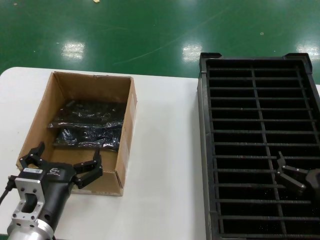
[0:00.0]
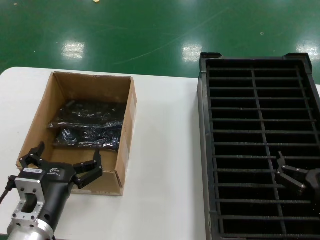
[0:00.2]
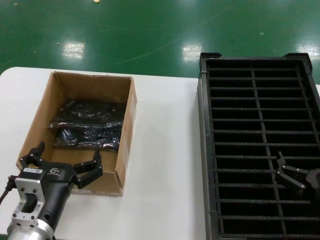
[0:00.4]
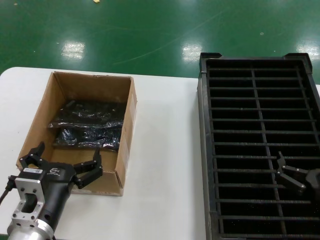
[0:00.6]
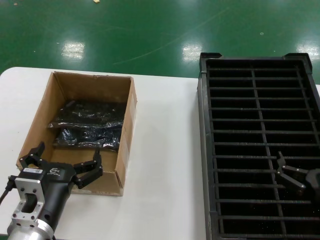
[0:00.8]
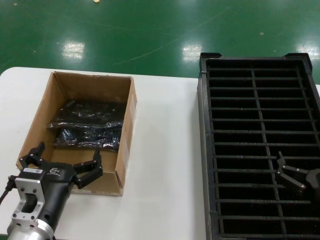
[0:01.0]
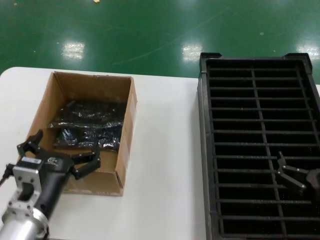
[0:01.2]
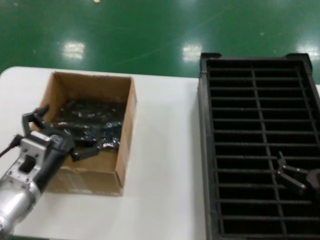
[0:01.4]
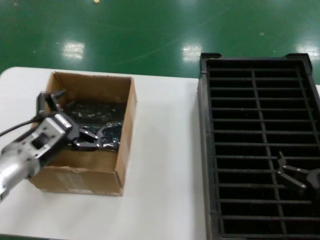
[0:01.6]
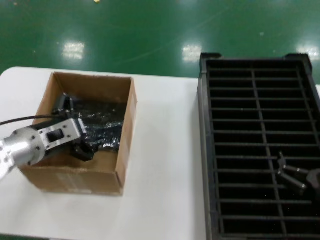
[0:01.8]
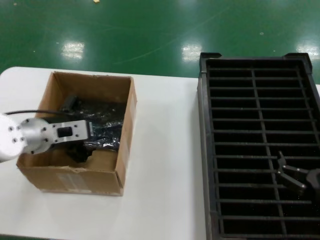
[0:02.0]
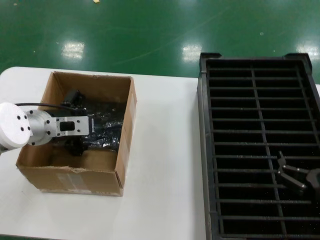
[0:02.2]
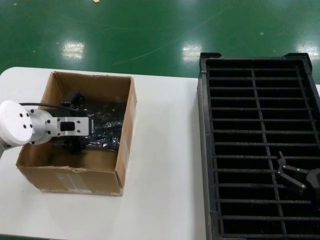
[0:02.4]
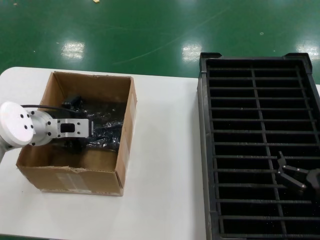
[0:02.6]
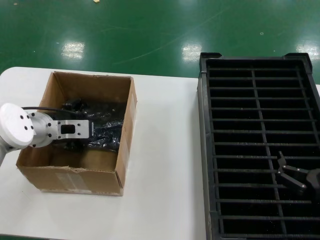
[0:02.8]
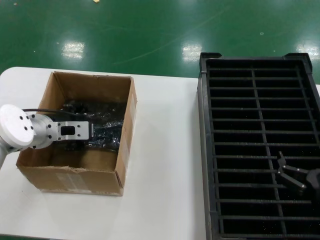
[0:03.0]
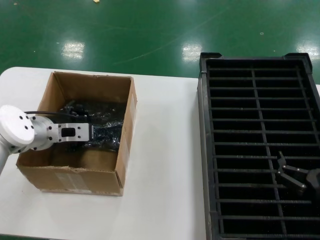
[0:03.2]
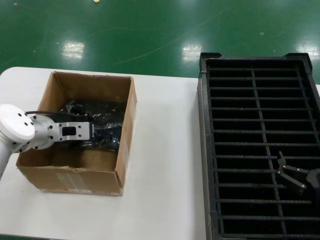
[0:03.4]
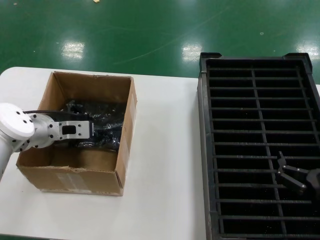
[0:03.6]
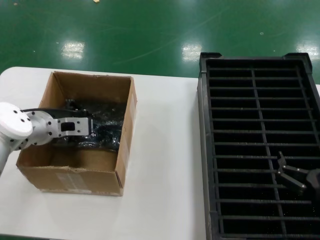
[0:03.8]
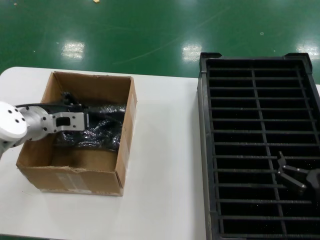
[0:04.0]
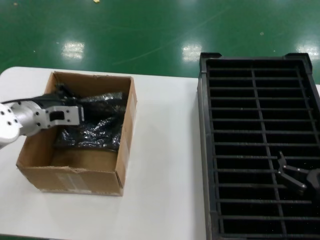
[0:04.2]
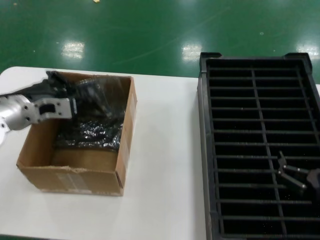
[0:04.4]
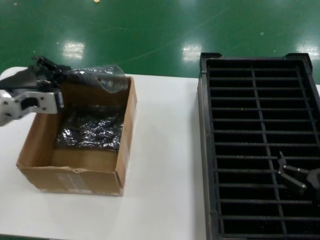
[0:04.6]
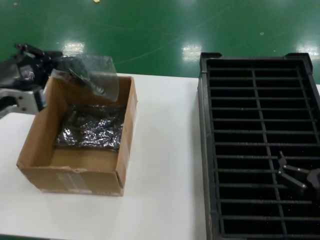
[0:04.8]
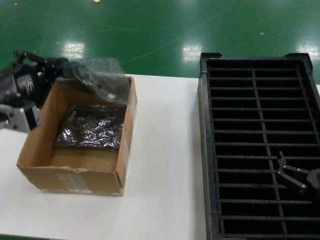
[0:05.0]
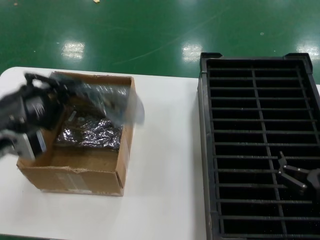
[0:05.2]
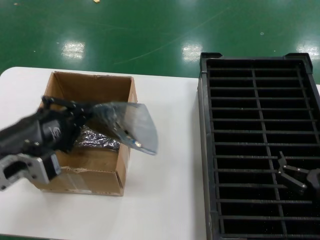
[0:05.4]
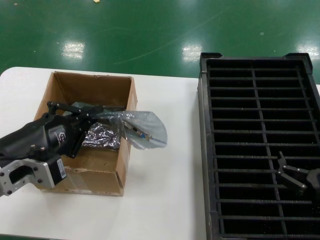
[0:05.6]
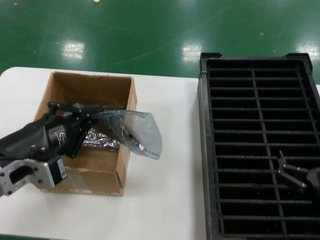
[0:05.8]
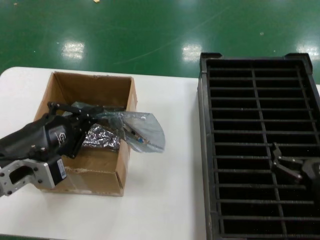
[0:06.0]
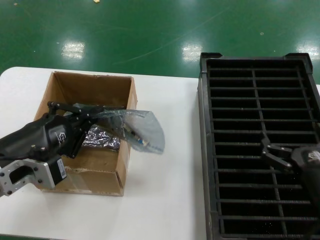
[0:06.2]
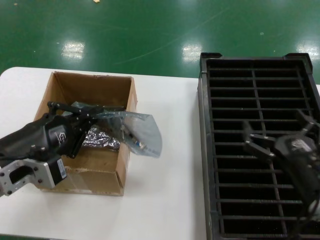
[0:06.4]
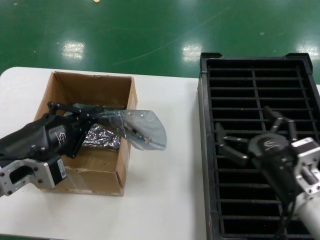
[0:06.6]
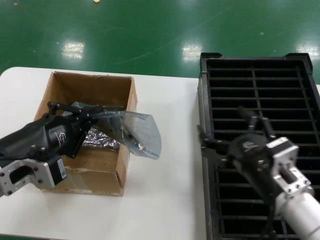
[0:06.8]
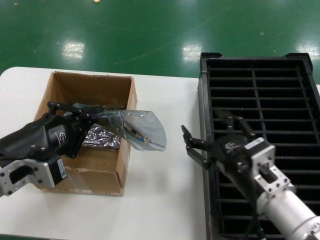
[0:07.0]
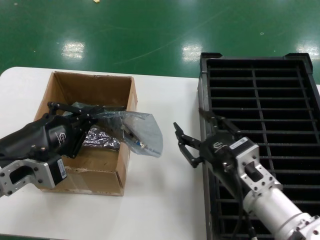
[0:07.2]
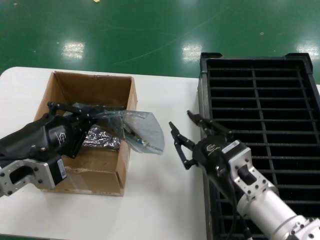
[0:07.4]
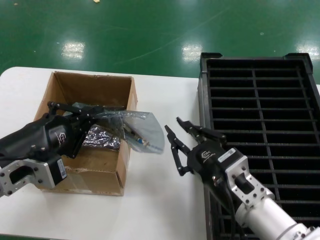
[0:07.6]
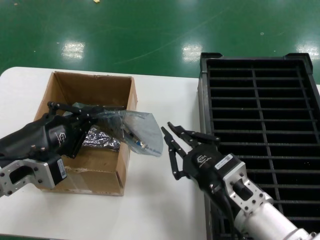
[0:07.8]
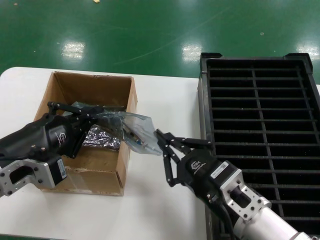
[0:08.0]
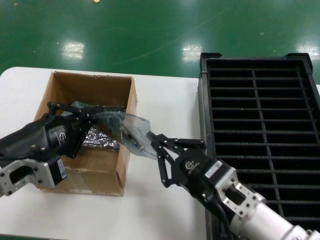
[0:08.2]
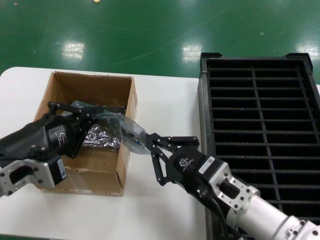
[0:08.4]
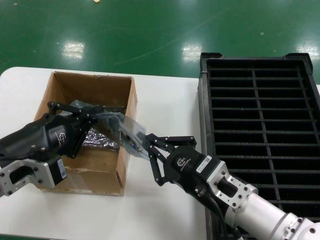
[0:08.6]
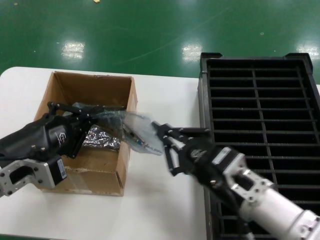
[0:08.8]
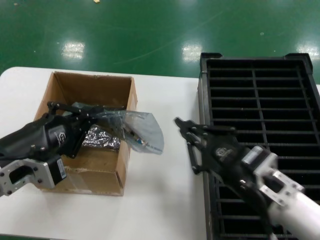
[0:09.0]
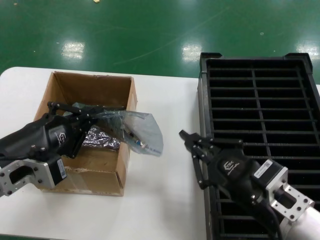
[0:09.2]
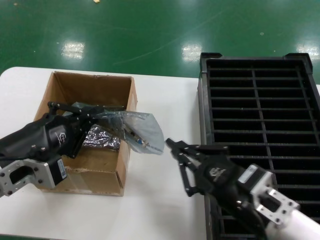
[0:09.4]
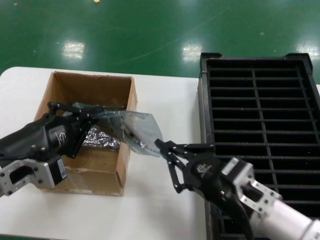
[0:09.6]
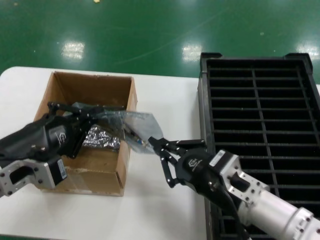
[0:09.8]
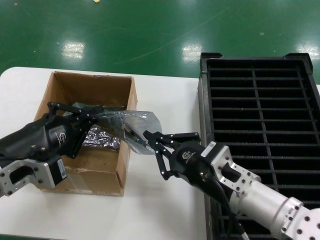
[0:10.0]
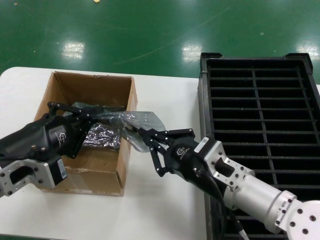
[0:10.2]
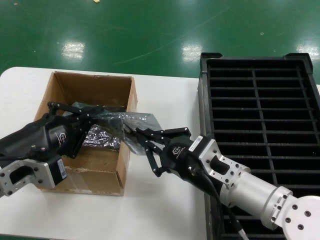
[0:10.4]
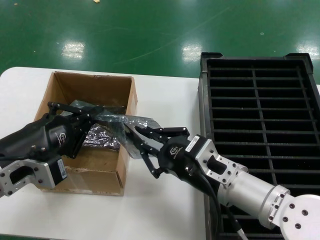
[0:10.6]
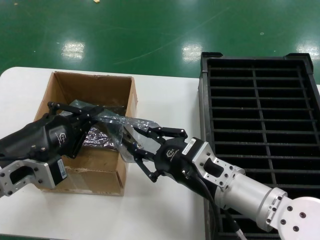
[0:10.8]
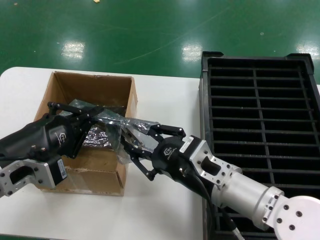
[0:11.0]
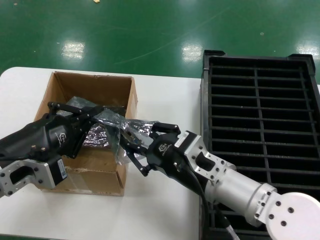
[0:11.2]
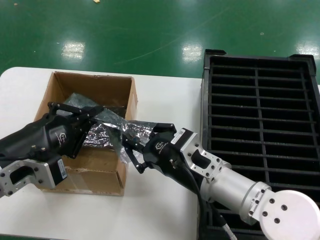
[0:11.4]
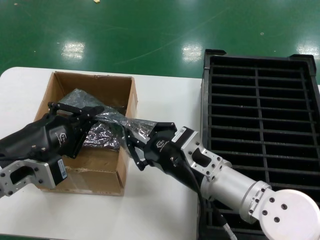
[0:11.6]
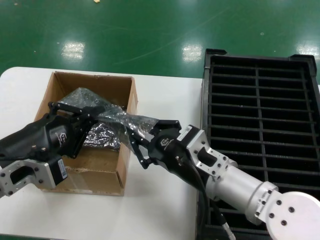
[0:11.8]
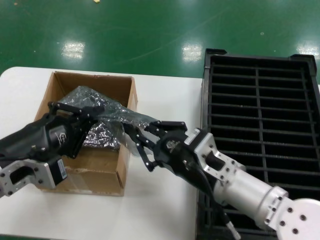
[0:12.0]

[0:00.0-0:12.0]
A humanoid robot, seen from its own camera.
Task of the whole recording: take out graphics card from box remove packaging put into black container.
Step, 0:00.0 to 0:03.4: Grasp the bag.
Step, 0:03.8 to 0:05.6: Lift the bag.
0:00.0 to 0:01.6: The left hand is displaced forward, upward and to the left by approximately 15 cm.
0:01.6 to 0:03.0: The left hand moves forward, about 10 cm.
0:03.0 to 0:04.4: The left hand ends up some 5 cm from where it was.
0:04.4 to 0:06.0: The left hand heads backward, covering about 20 cm.
0:06.0 to 0:07.6: The right hand moves to the left, approximately 15 cm.
0:07.6 to 0:09.0: The hands stay close to where they were, moving slightly.
0:09.0 to 0:10.4: The right hand goes roughly 5 cm to the left.
0:10.4 to 0:12.0: The hands stay close to where they were, moving slightly.

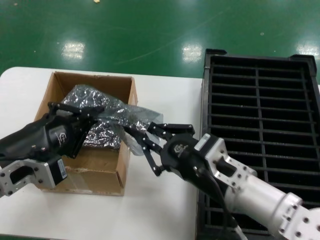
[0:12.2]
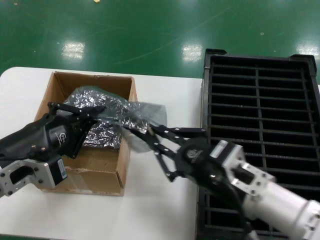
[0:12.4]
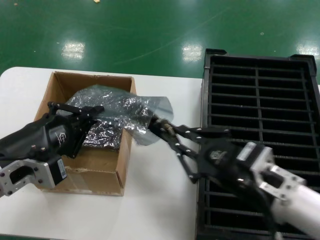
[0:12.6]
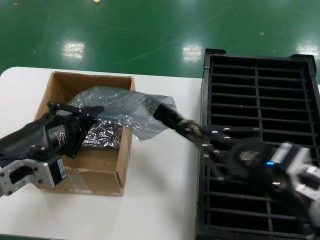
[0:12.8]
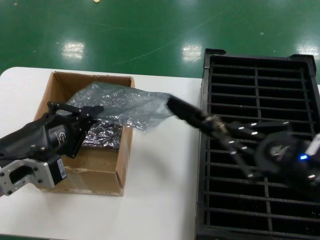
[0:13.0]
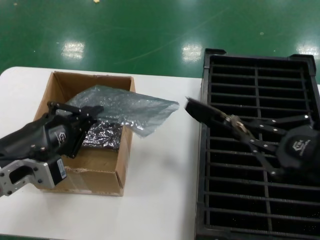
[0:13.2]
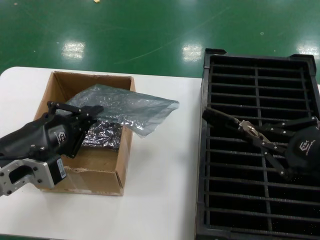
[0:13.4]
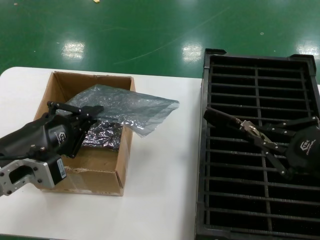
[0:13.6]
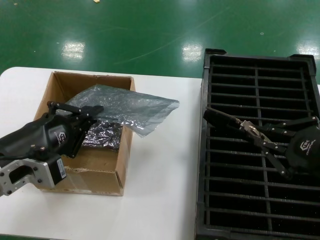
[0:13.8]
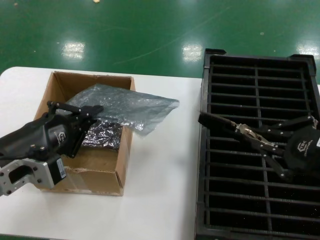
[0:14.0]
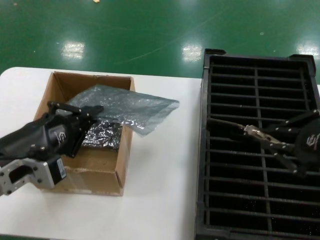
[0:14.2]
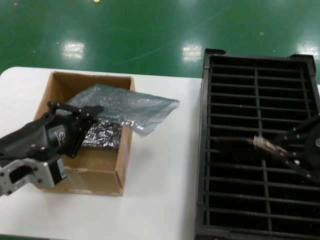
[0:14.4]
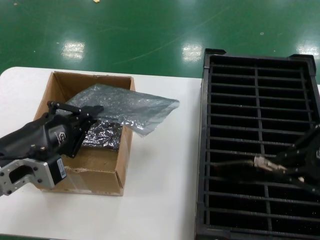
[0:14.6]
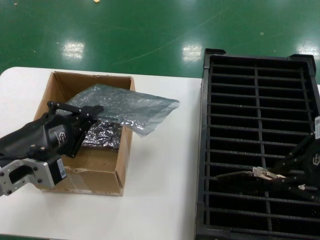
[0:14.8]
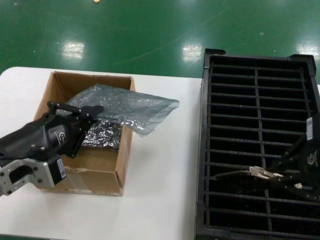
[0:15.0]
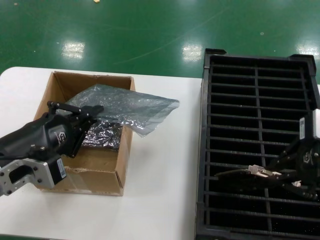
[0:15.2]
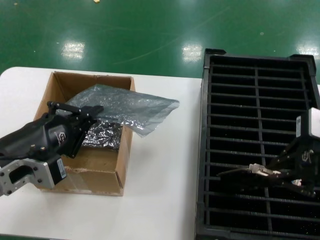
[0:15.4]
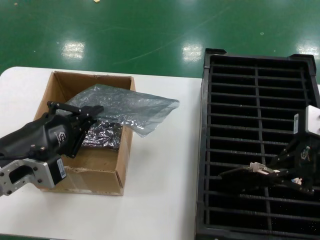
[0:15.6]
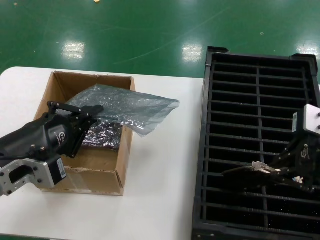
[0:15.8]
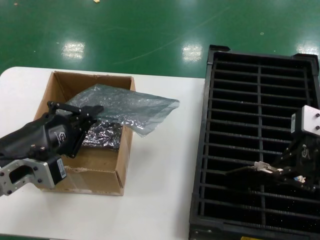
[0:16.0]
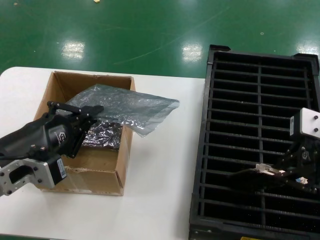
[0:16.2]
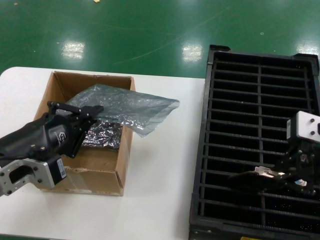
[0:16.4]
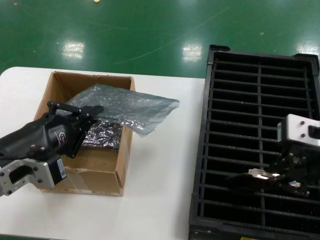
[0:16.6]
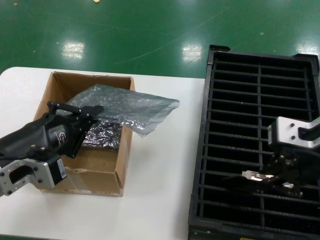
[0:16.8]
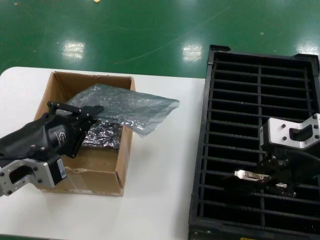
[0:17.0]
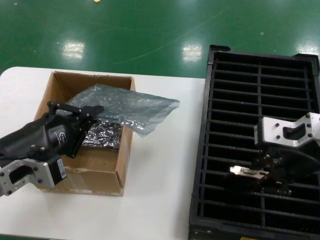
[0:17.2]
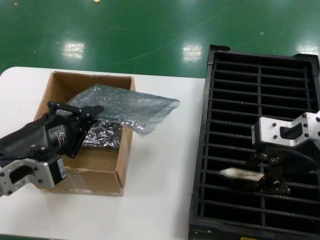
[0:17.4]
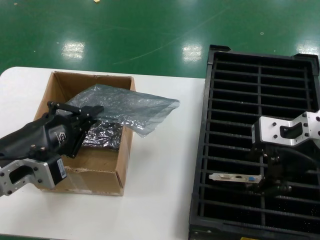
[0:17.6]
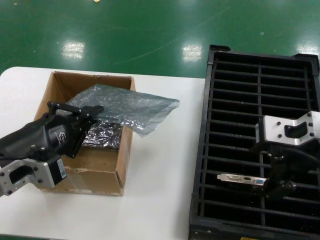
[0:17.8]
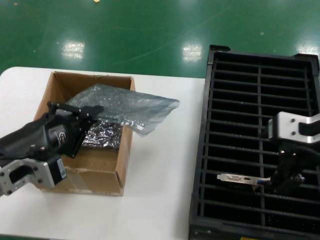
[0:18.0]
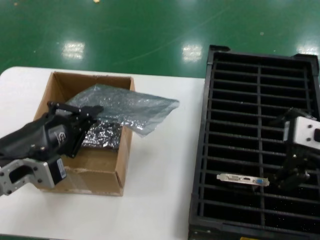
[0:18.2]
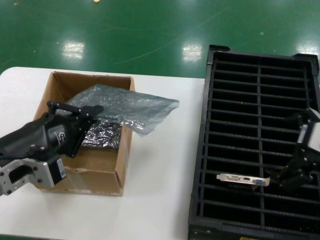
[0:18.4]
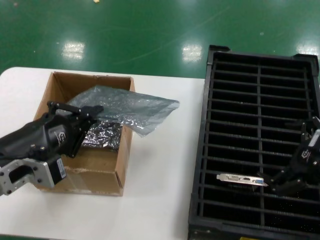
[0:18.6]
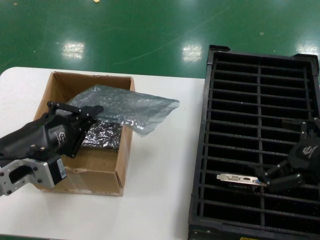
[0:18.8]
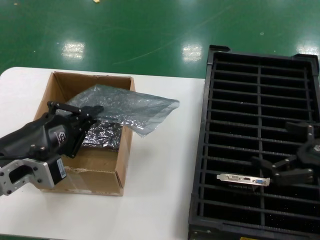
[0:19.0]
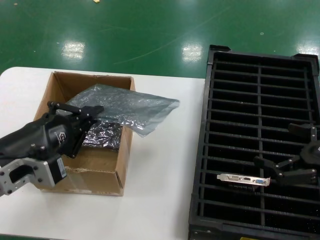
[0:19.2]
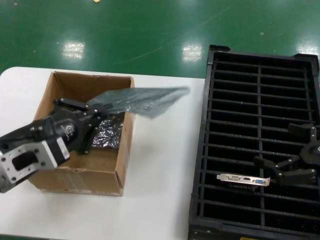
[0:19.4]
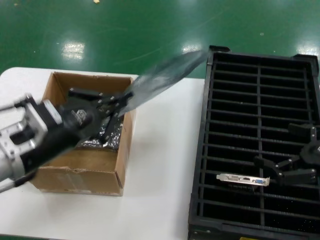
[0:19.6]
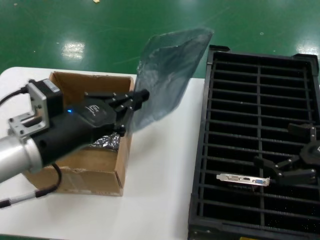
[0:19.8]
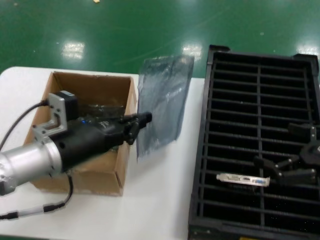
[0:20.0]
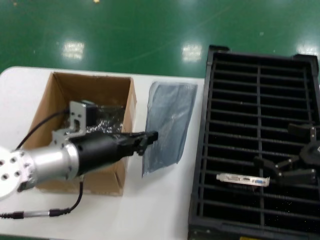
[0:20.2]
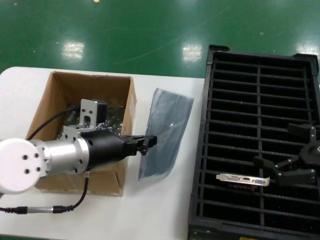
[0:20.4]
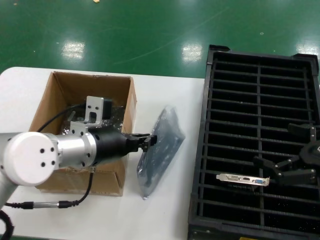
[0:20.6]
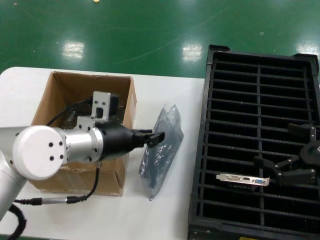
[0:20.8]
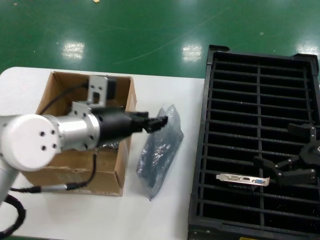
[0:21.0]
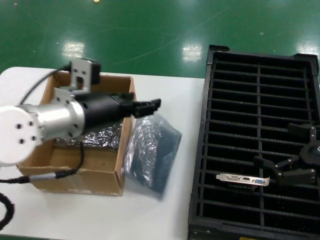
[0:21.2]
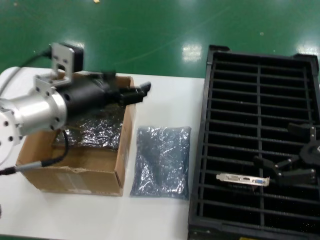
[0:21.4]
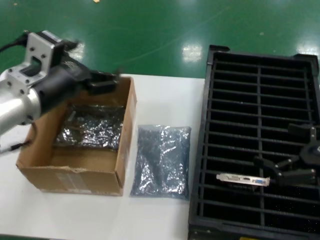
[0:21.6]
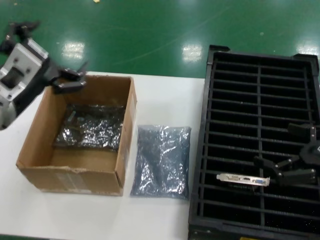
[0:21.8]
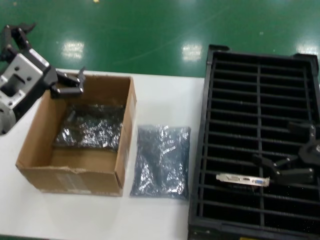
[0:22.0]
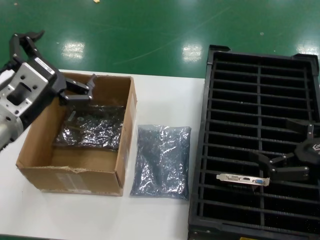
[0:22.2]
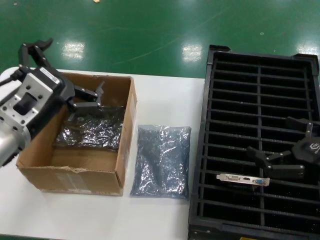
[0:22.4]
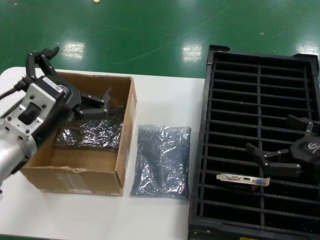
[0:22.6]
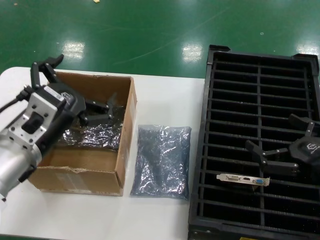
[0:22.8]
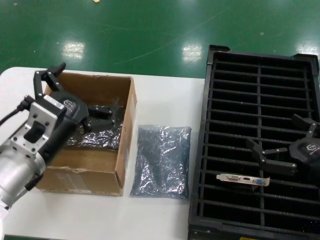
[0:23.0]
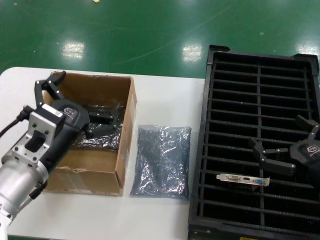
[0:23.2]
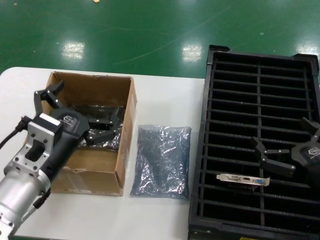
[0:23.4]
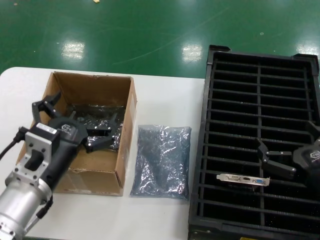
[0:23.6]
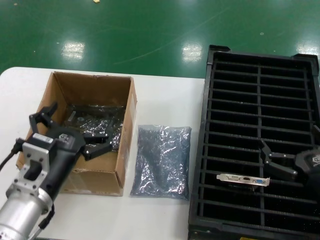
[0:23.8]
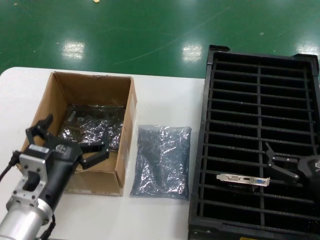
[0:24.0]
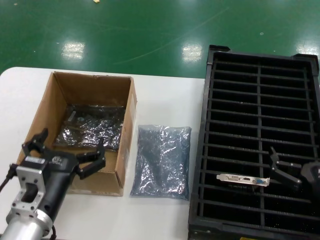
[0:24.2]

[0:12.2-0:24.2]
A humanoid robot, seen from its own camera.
Task of the whole recording: take out graphics card from box remove packaging put into black container.
Step, 0:13.4 to 0:18.6: Place the hard disk in the hard disk enclosure.
0:12.2 to 0:13.8: The right hand shifts some 20 cm to the right and upward.
0:13.8 to 0:15.2: The right hand travels upward by approximately 10 cm.
0:15.2 to 0:16.6: The hands make only small movements.
0:16.6 to 0:18.2: There are only small adjustments of the hands.
0:18.2 to 0:19.8: The right hand shifts approximately 15 cm to the right and downward. The left hand changes place by approximately 5 cm.
0:19.8 to 0:21.2: The left hand shifts approximately 10 cm forward.
0:21.2 to 0:22.6: The left hand travels backward by approximately 10 cm.
0:22.6 to 0:24.2: The right hand moves downward and to the left, approximately 10 cm. Meanwhile the left hand moves downward, about 15 cm.
